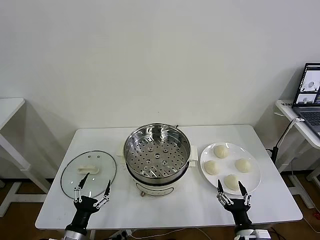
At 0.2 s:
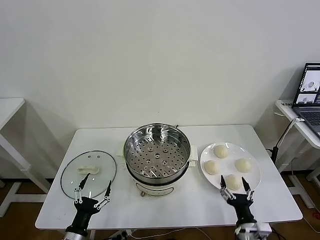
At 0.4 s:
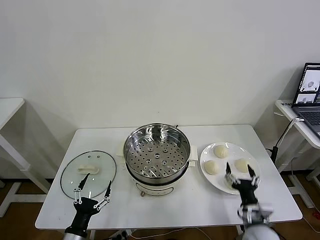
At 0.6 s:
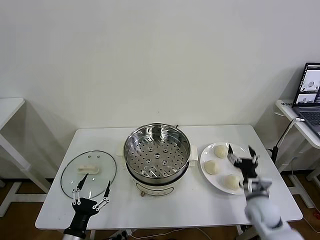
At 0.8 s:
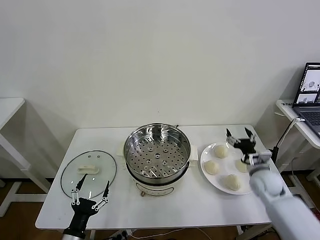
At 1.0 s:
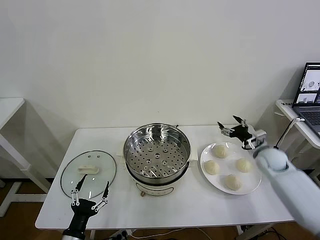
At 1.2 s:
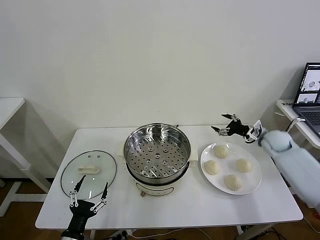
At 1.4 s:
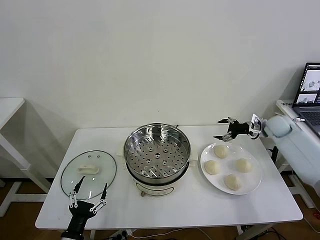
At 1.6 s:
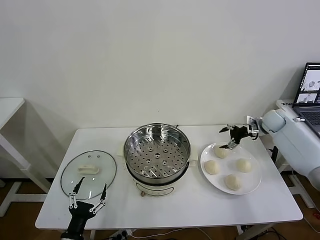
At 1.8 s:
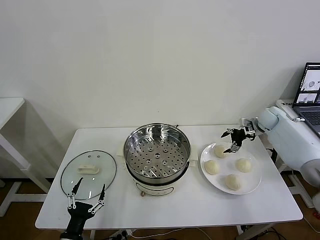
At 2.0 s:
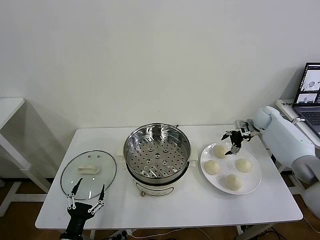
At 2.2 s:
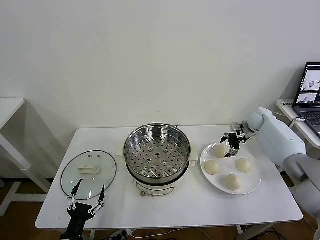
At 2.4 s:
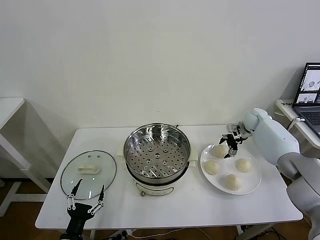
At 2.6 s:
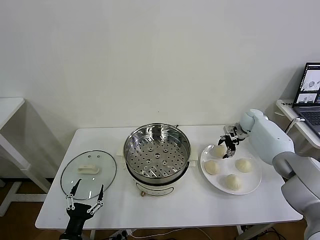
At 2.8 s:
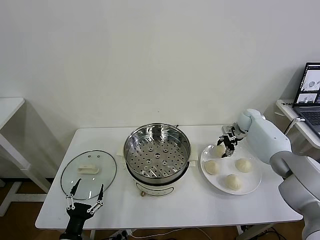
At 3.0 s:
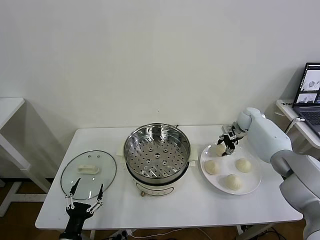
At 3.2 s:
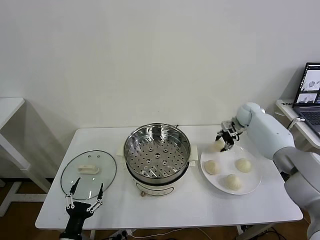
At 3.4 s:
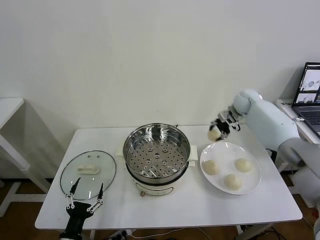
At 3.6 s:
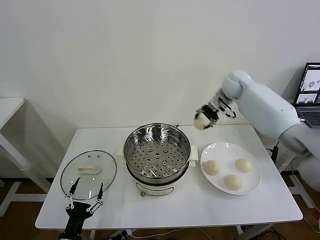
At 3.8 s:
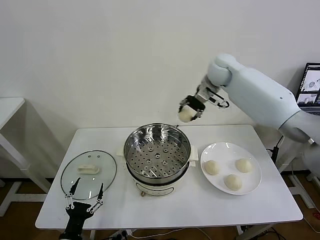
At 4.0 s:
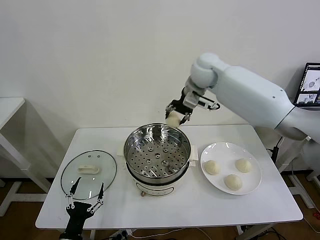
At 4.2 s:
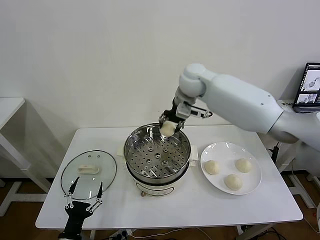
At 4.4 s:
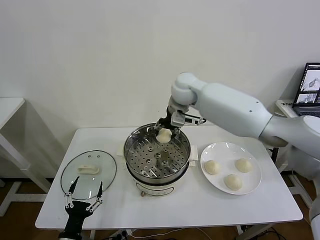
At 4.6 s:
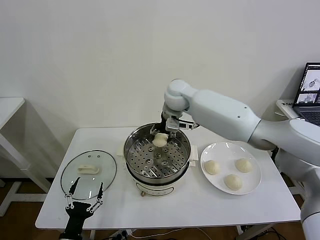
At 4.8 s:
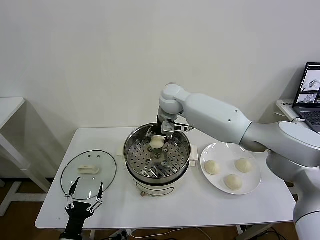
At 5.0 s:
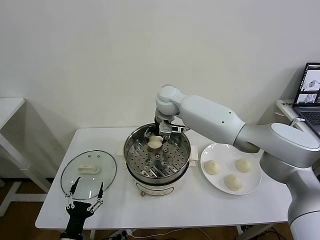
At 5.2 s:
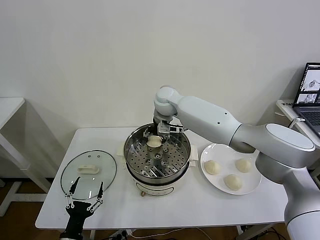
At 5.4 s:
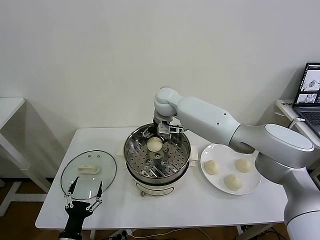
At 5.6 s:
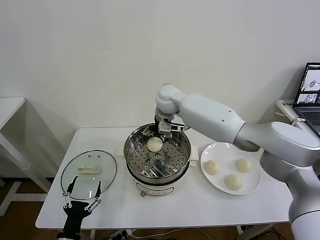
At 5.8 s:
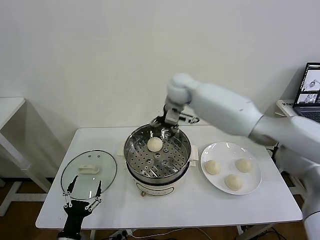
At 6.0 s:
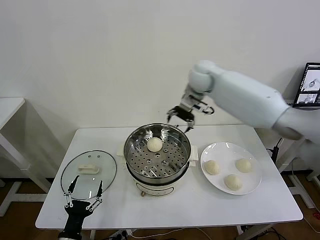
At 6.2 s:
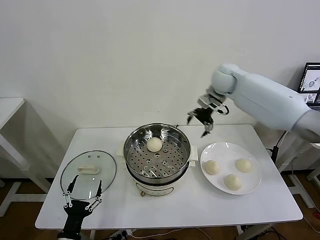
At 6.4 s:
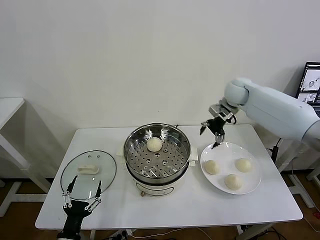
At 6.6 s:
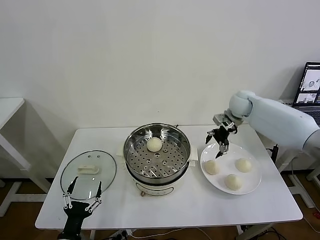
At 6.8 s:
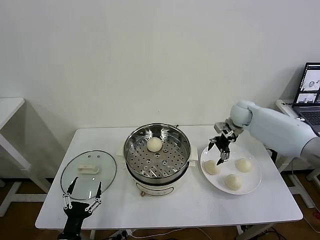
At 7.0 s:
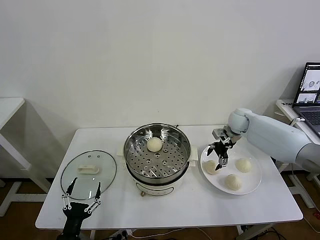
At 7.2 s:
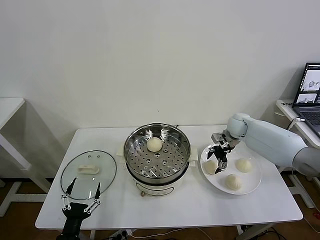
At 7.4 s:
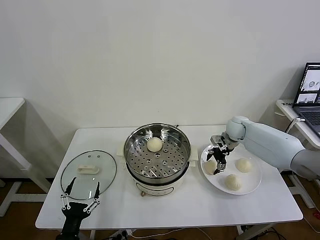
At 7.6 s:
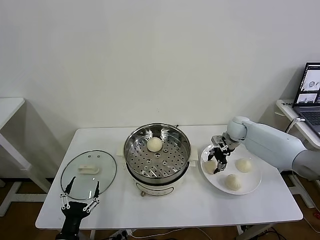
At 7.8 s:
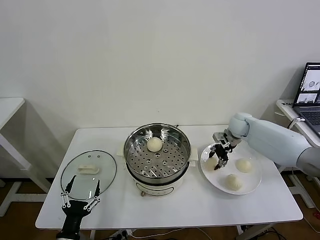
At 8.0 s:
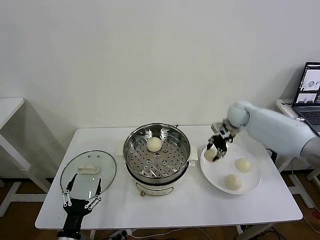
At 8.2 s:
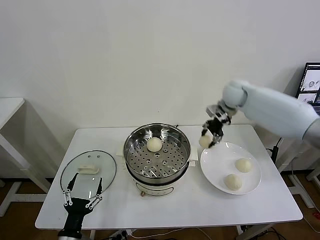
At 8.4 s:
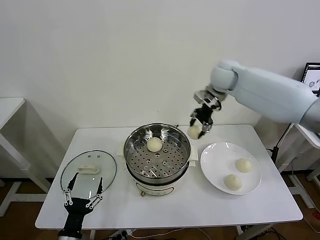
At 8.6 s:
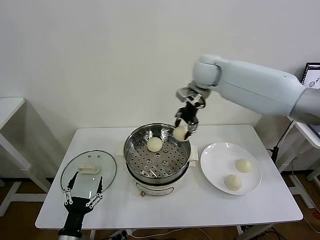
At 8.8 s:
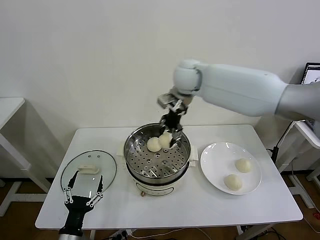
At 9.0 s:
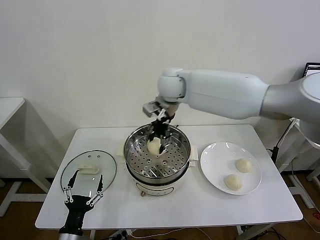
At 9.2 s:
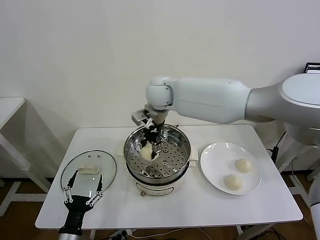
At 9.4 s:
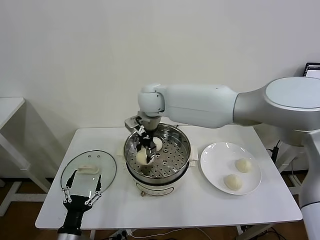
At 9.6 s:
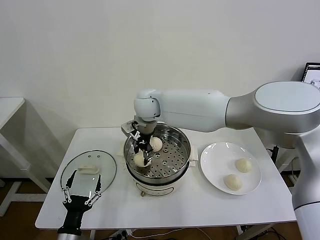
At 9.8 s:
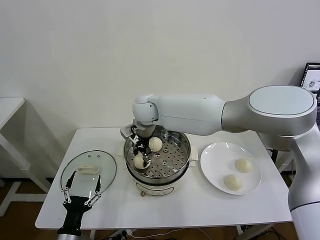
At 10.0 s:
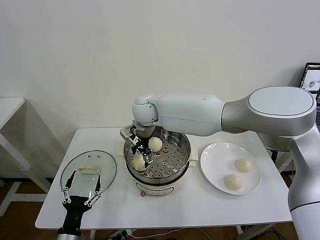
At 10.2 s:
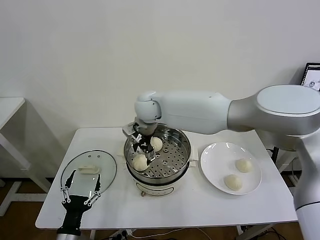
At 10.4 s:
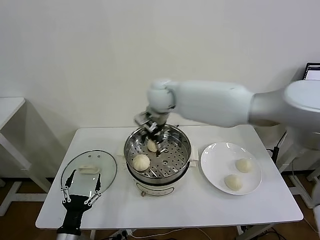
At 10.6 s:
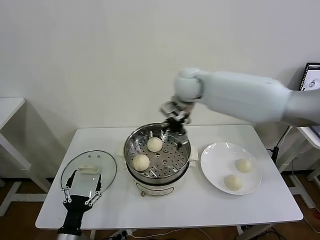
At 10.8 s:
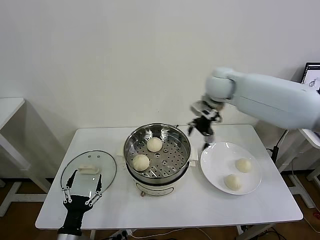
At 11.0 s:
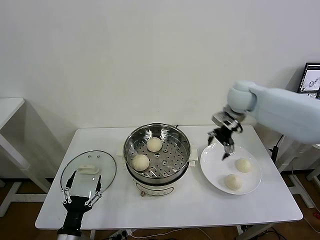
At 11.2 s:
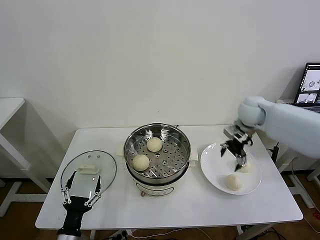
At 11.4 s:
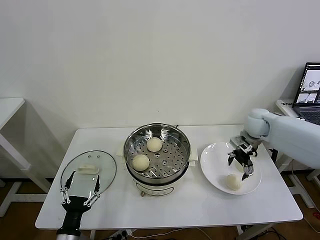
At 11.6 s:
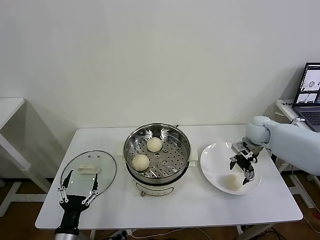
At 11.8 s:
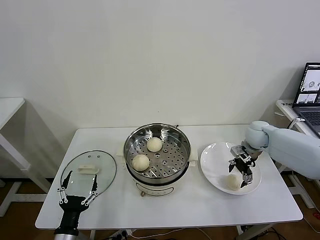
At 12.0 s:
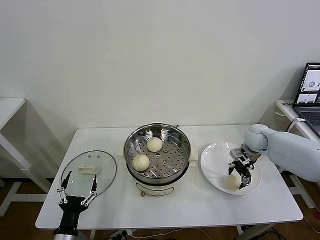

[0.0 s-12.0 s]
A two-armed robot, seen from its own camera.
Task of the whole recording: take steamed baozi put them in steamer then cover it.
Step, 0.0 to 2.6 s: Grasp the baozi in the plate with right gripper.
Step, 2.8 to 5.4 s: Place the baozi on the steamer with right gripper.
Step, 5.6 to 7.4 s: Grasp the baozi in the plate with right gripper.
Step, 7.6 to 10.0 s: Place the baozi on the steamer with right gripper.
1.6 to 3.0 s: The right gripper goes approximately 10 cm to the left and forward, and closes.
3.0 to 4.4 s: The right gripper is displaced to the left and upward by approximately 35 cm.
4.4 to 6.0 s: The right gripper travels to the right by some 5 cm, and opens.
6.0 to 7.6 s: The right gripper heads downward and to the right, covering roughly 30 cm, and closes its fingers.
7.6 to 9.0 s: The right gripper shifts approximately 35 cm to the left and upward, and closes up.
9.0 to 10.4 s: The right gripper opens its fingers.
10.4 to 12.0 s: The right gripper shifts about 40 cm to the right and downward.

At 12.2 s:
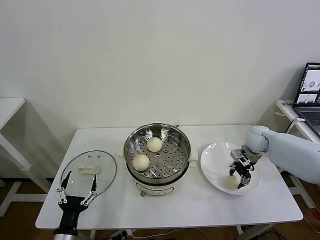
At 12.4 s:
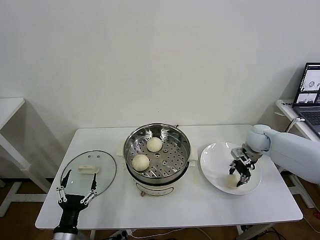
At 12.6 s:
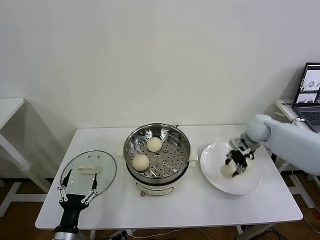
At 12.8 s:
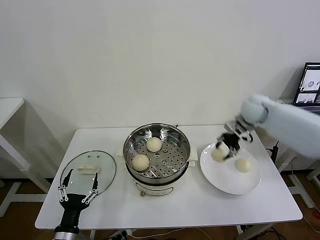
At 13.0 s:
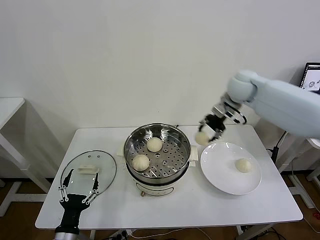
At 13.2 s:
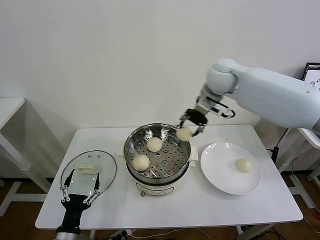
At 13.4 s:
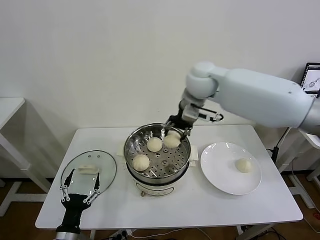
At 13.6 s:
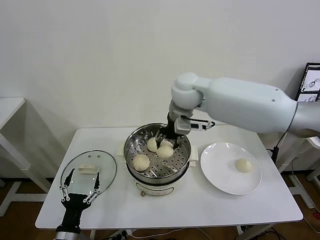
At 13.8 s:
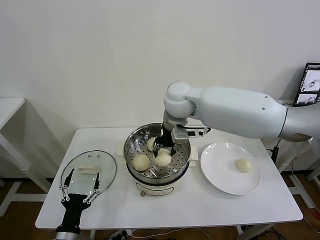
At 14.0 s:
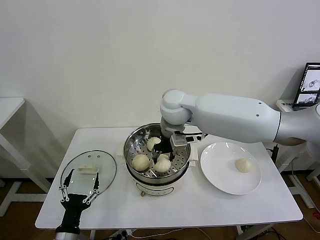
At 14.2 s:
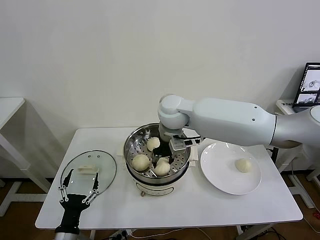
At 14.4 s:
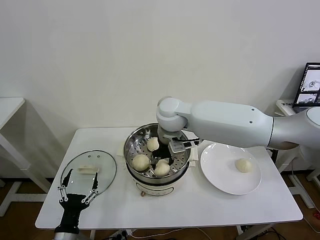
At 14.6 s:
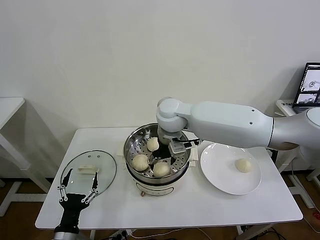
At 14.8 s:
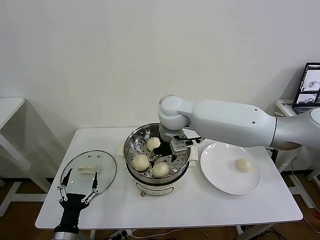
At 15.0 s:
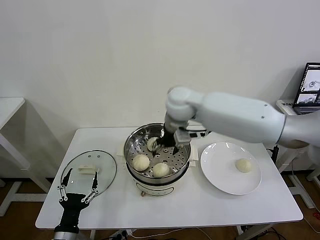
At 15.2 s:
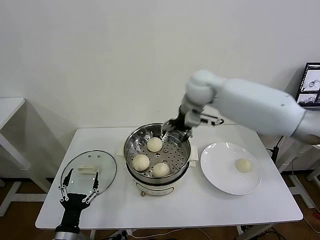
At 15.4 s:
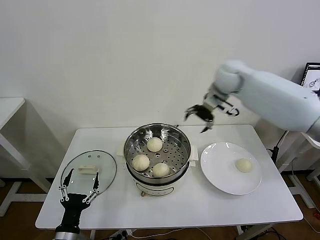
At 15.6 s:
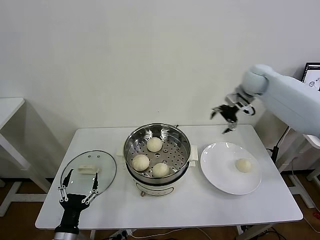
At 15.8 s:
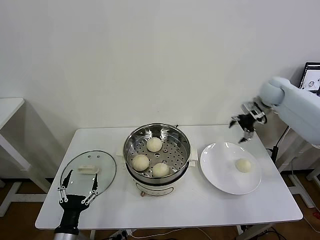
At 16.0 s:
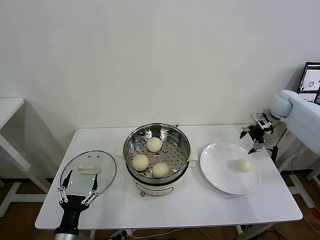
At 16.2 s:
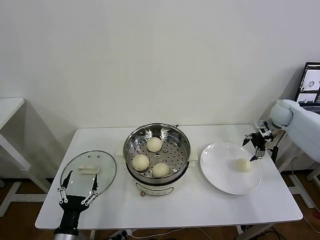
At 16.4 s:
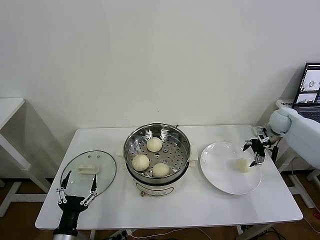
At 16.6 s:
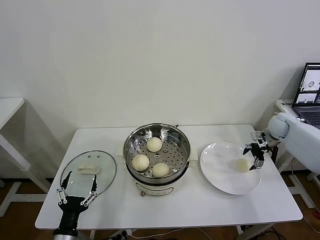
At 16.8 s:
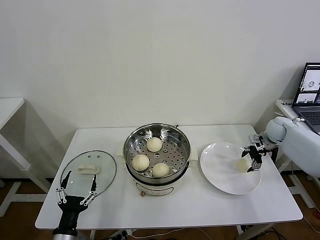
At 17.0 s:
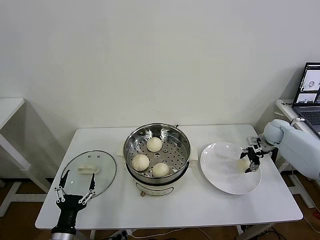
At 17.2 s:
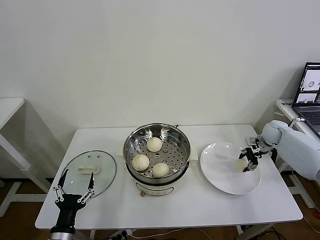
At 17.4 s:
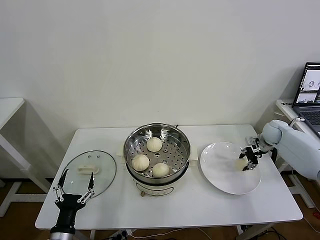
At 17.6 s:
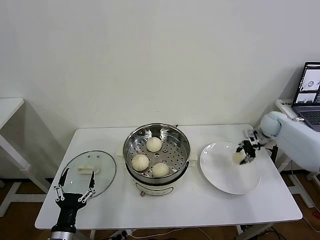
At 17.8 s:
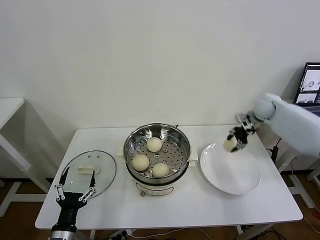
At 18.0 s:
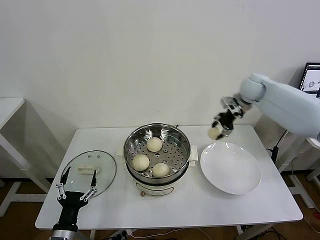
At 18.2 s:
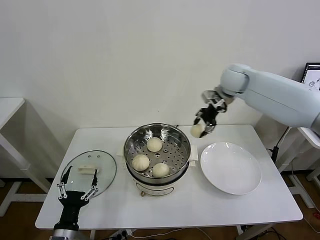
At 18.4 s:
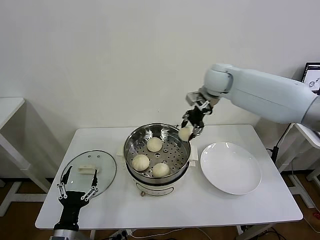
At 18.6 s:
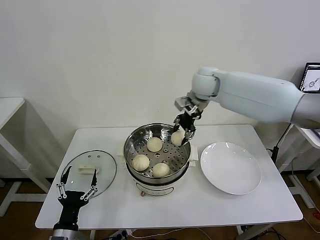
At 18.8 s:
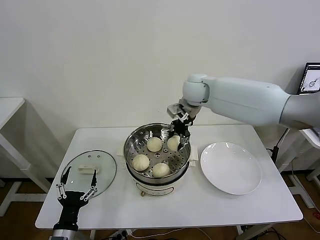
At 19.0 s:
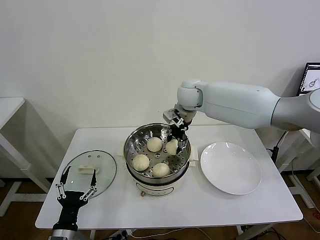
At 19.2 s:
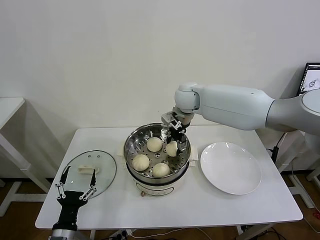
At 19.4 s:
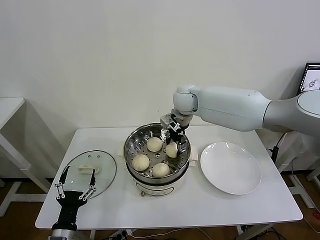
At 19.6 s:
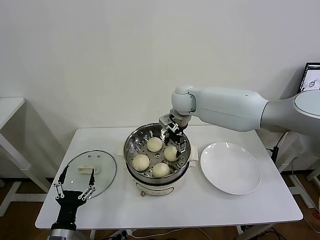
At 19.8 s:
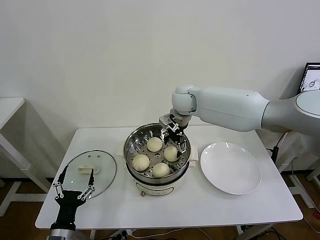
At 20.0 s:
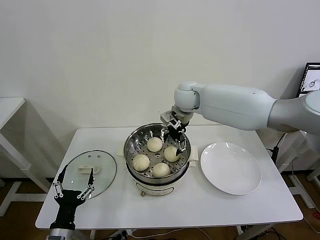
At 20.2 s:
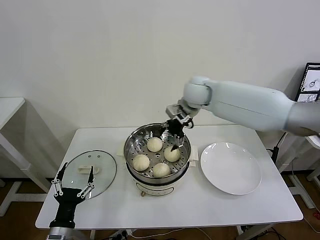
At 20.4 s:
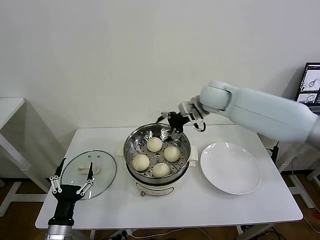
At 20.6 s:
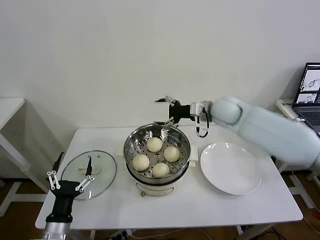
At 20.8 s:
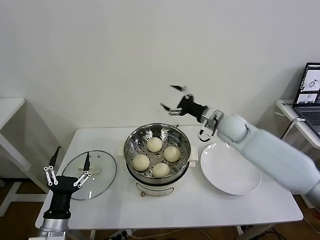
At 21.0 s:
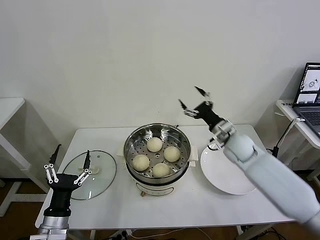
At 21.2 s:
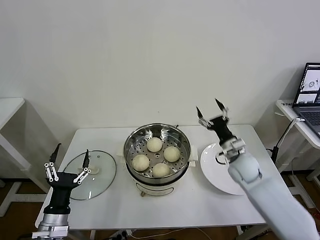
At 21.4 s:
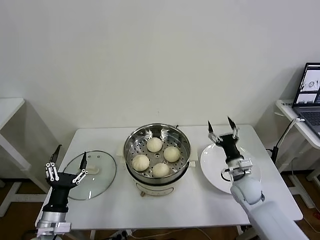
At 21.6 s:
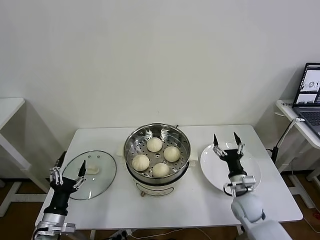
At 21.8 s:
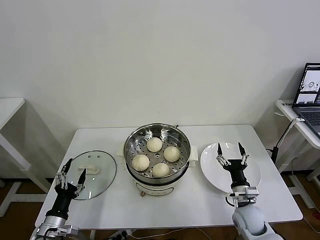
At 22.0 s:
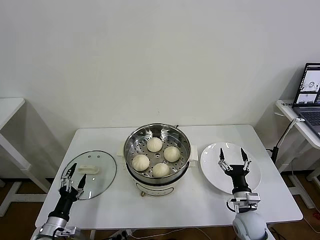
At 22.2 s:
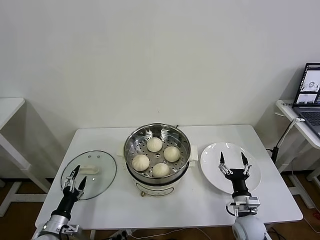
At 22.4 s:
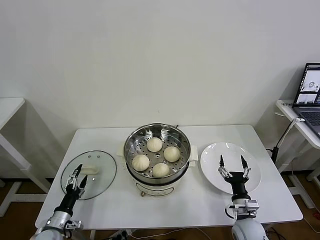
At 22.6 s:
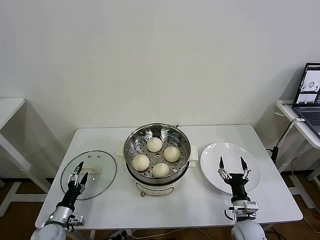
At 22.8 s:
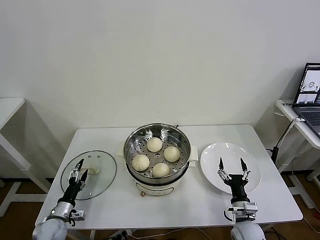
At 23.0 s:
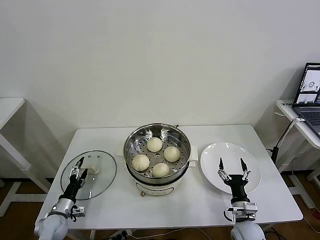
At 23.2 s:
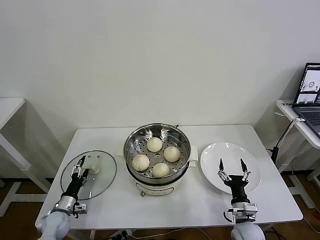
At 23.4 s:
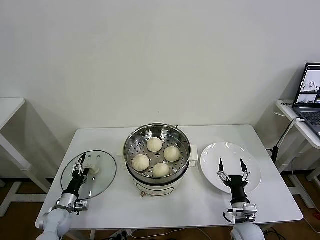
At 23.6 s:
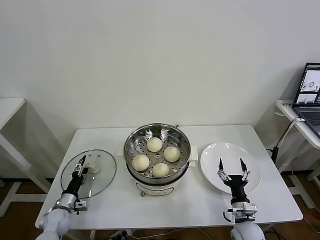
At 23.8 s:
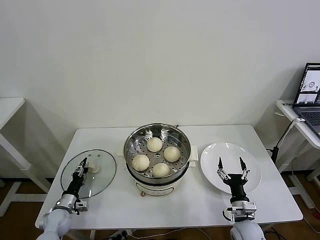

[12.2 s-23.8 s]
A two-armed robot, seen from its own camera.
Task of the whole recording: take steamed baozi put them in steamer then cover it.
Step, 12.4 to 14.6 s: Place the baozi on the steamer with right gripper.
Step, 14.8 to 17.0 s: Grasp the baozi in the plate with right gripper.
Step, 17.4 to 19.6 s: Place the baozi on the steamer with right gripper.
12.2 to 13.6 s: The right gripper goes roughly 35 cm to the left and upward.
13.6 to 15.0 s: The right gripper opens.
15.0 to 16.6 s: The right gripper shifts some 40 cm to the right.
16.6 to 18.0 s: The right gripper shifts about 20 cm to the left and upward, and closes up.
18.0 to 19.4 s: The right gripper goes approximately 25 cm to the left, and opens its fingers.
19.4 to 21.0 s: The right gripper goes about 25 cm to the right, downward and backward, and opens up.
21.0 to 22.4 s: The right gripper heads backward and downward, covering about 30 cm. The left gripper travels downward and to the left by about 15 cm.
22.4 to 23.8 s: The left gripper goes some 10 cm forward, and closes up.
